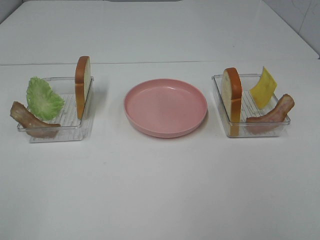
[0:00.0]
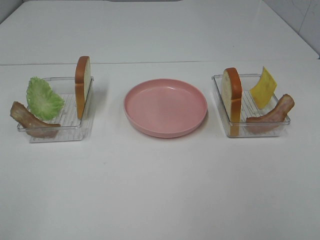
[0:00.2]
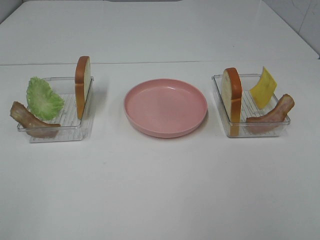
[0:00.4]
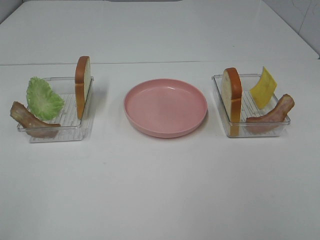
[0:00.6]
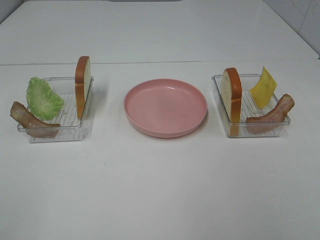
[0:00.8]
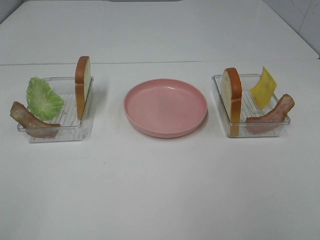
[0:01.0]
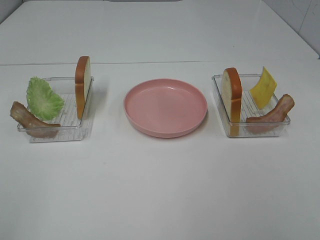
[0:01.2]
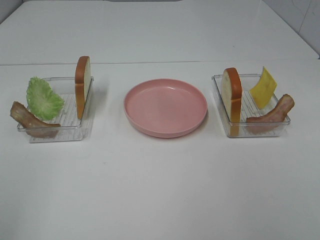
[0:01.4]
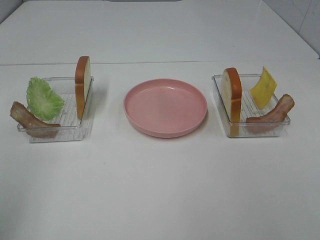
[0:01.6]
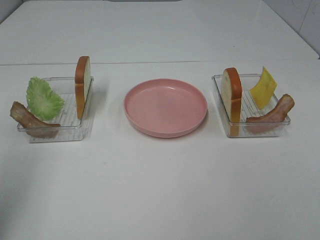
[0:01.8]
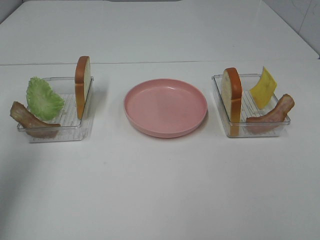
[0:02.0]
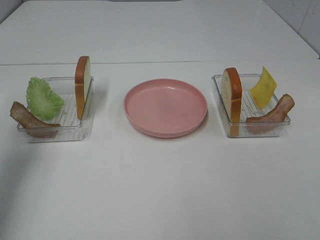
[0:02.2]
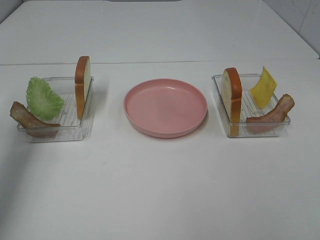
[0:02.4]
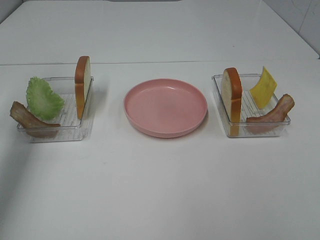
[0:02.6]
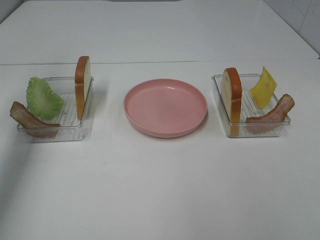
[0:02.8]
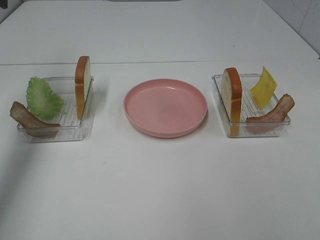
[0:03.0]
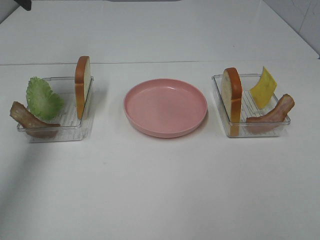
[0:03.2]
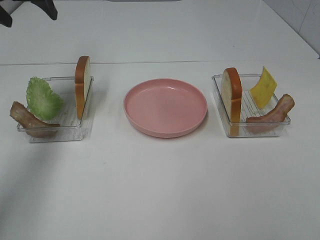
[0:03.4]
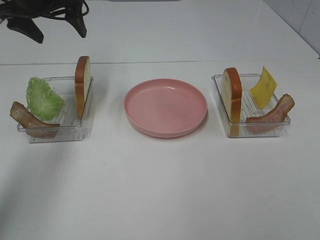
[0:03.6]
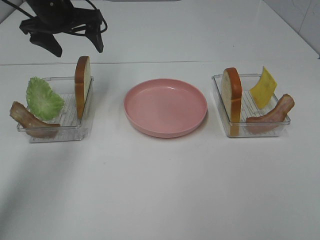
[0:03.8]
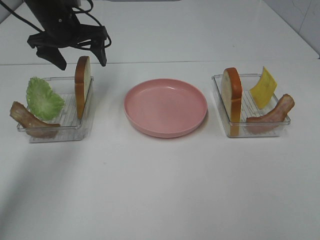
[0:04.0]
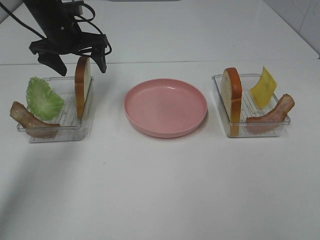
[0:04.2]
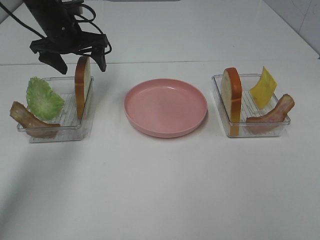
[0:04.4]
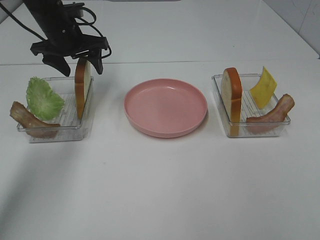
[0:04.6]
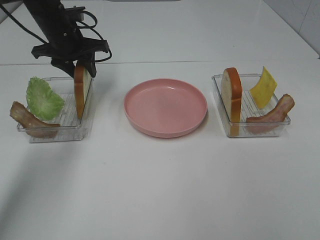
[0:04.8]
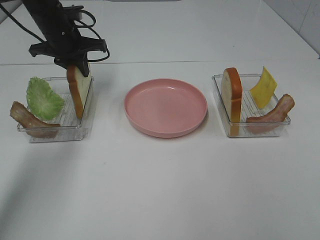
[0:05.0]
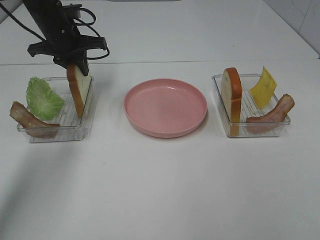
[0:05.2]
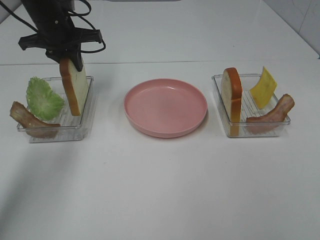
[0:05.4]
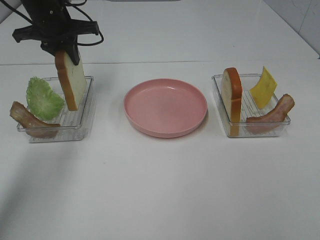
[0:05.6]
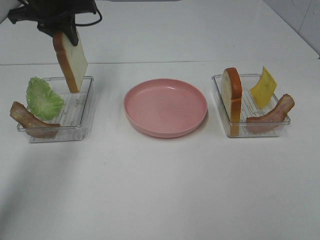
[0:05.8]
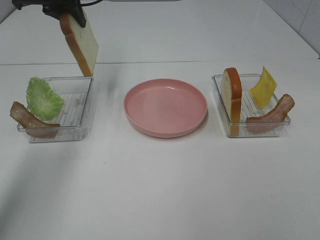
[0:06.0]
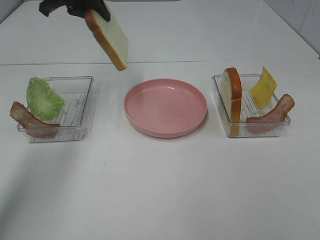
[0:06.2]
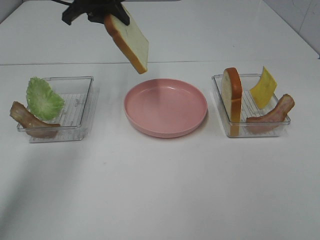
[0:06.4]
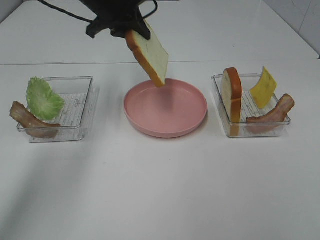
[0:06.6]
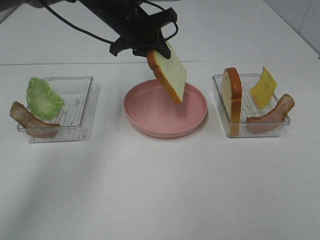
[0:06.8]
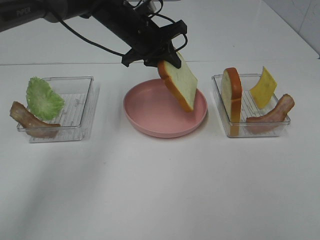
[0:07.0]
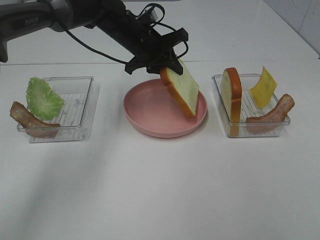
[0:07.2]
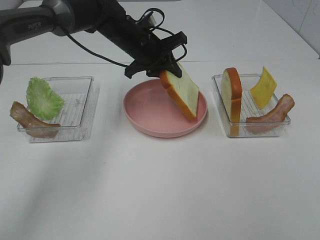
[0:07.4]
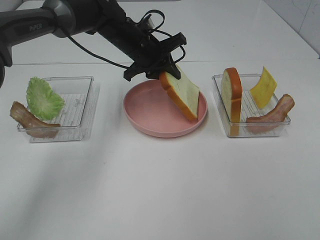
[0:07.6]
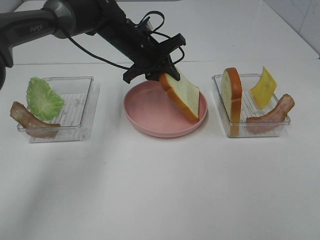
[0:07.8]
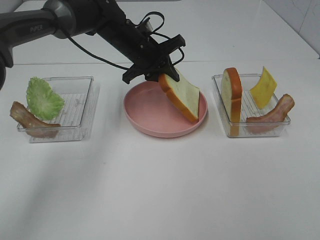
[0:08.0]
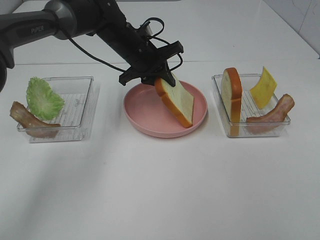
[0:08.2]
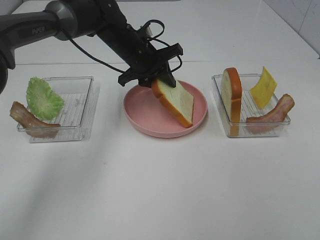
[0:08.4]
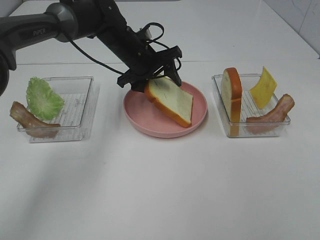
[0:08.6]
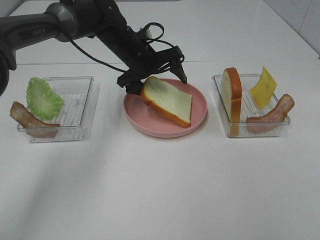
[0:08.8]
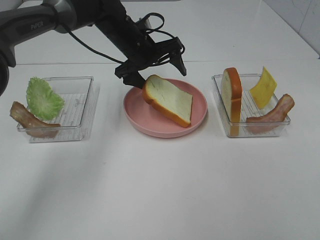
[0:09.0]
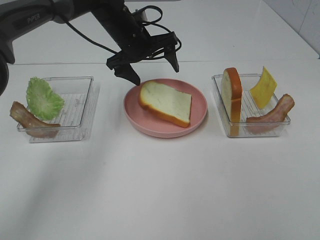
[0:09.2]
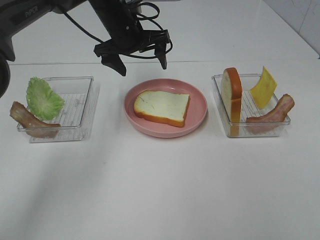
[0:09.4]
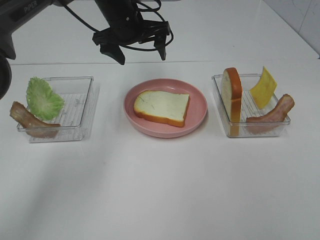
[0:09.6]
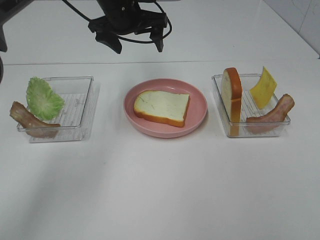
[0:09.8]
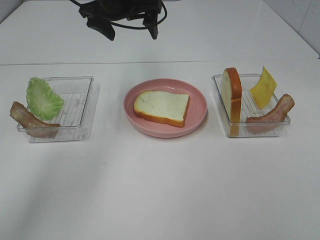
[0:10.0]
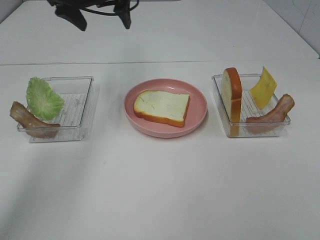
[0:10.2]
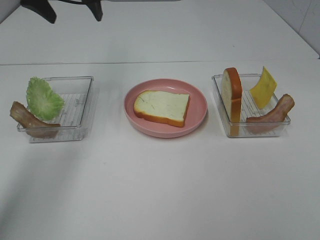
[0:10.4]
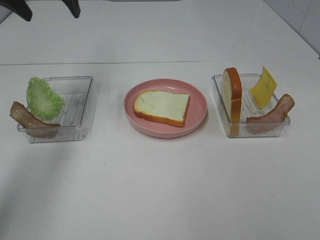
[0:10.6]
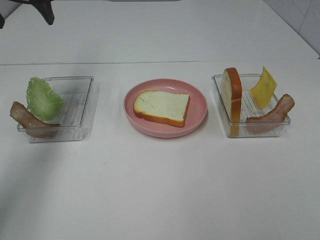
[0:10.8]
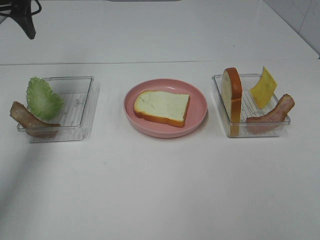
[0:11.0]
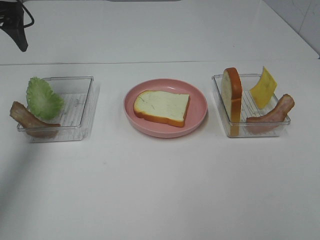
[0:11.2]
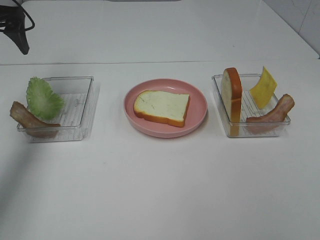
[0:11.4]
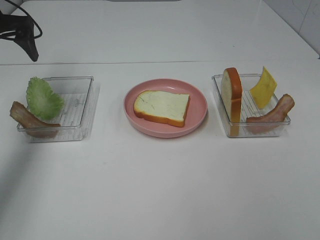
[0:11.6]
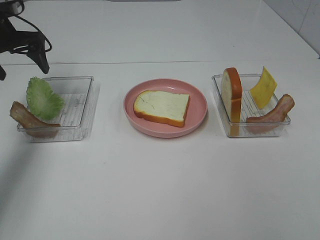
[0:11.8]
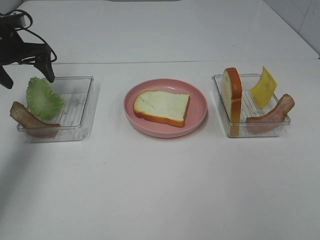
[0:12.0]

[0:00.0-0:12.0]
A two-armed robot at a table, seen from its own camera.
Task of the whole recording: Make sandwiches.
Step, 0:00.0 to 0:05.2: Left hand:grab the bread slice.
Step, 0:05.4 to 0:09.2: Left hand:place the bread slice on the plate.
0:01.6 to 0:03.0: The left gripper heads forward, covering about 30 cm.
0:03.0 to 0:04.4: The left gripper is displaced to the right, downward and forward by some 20 cm.
0:04.4 to 0:06.0: The left gripper is displaced upward by some 10 cm, and closes its fingers.
0:06.0 to 0:07.6: The left gripper shifts about 20 cm downward and to the right.
0:07.6 to 0:09.0: The left gripper opens up.
0:09.0 to 0:10.4: The left gripper goes approximately 20 cm upward and to the left.
0:10.4 to 0:12.0: The left gripper heads downward and to the left, covering roughly 20 cm.

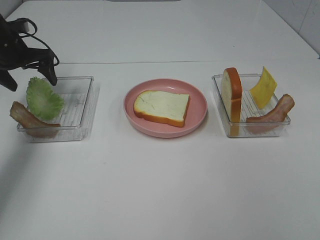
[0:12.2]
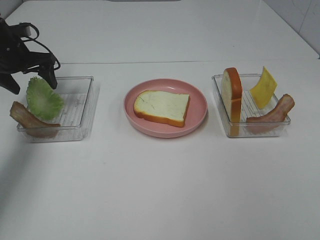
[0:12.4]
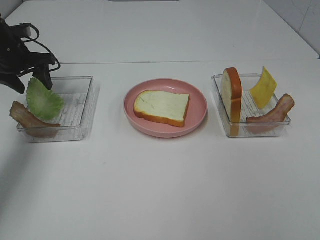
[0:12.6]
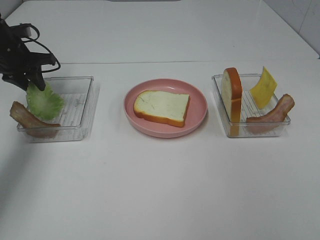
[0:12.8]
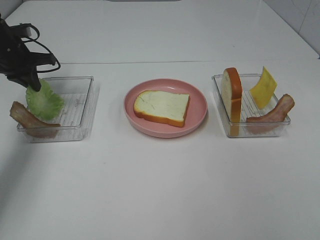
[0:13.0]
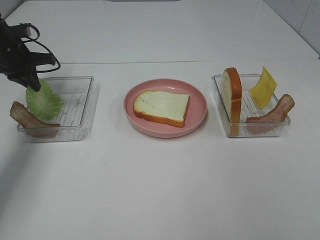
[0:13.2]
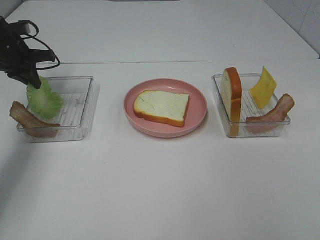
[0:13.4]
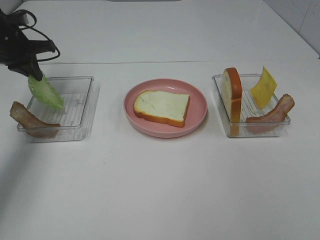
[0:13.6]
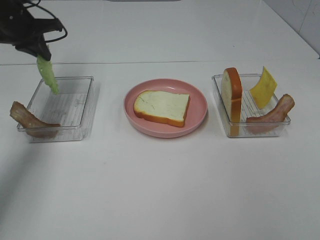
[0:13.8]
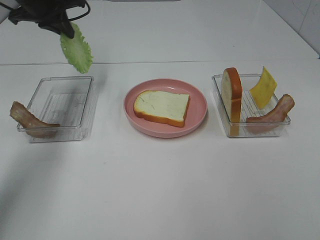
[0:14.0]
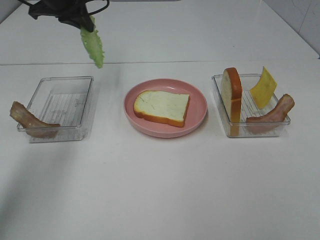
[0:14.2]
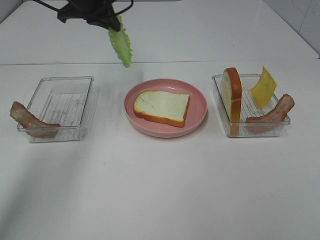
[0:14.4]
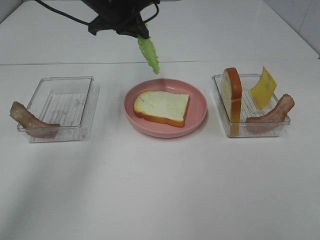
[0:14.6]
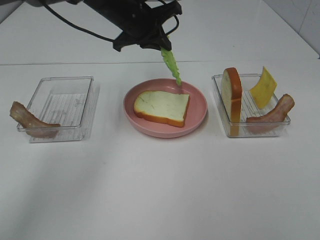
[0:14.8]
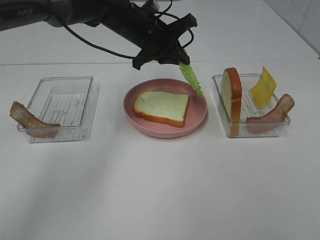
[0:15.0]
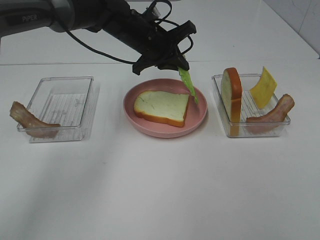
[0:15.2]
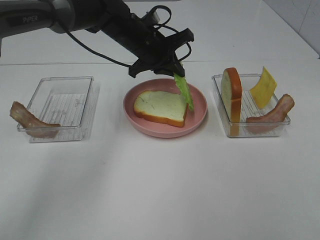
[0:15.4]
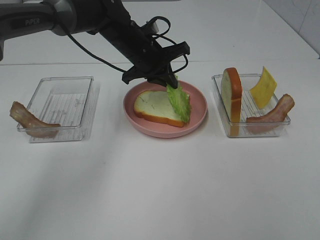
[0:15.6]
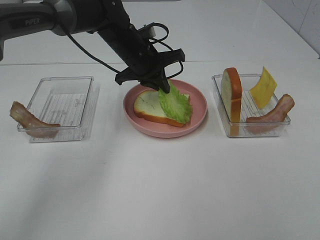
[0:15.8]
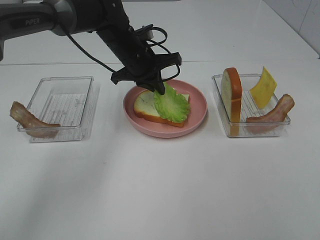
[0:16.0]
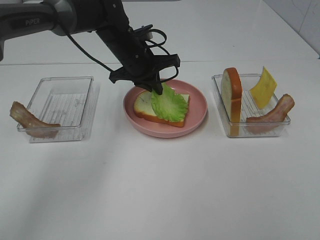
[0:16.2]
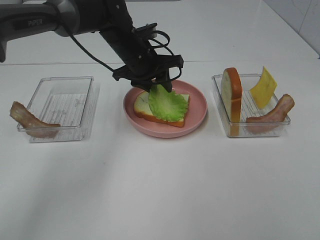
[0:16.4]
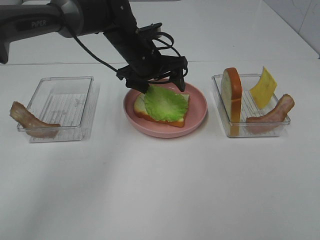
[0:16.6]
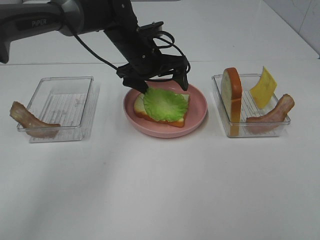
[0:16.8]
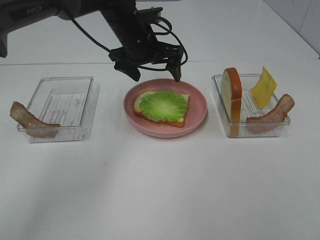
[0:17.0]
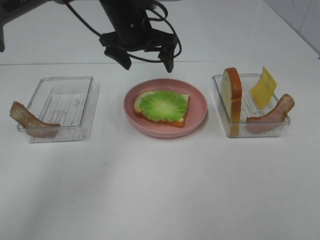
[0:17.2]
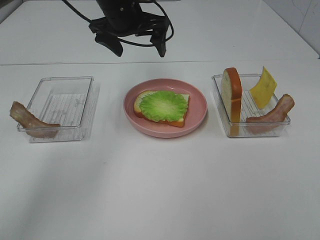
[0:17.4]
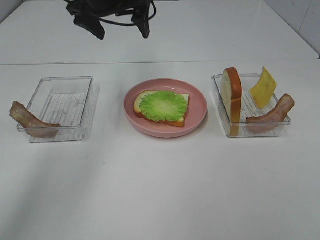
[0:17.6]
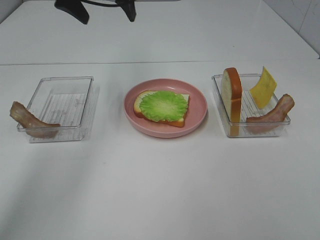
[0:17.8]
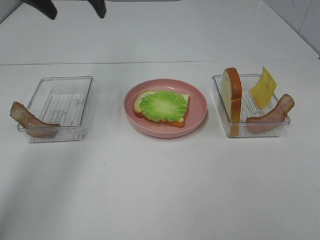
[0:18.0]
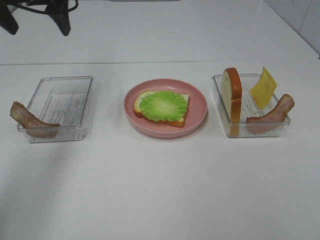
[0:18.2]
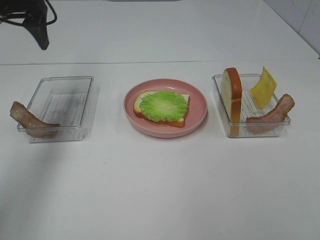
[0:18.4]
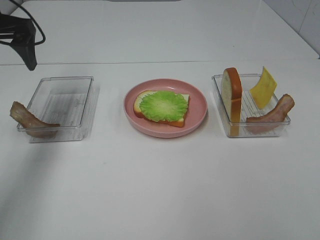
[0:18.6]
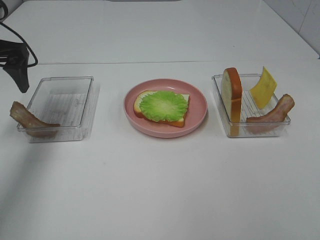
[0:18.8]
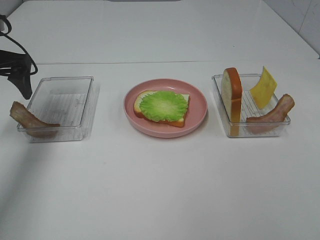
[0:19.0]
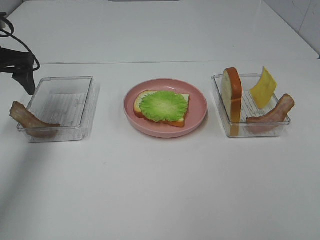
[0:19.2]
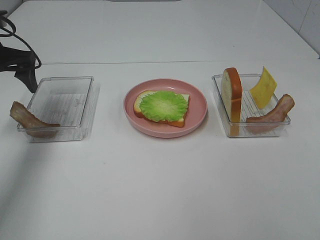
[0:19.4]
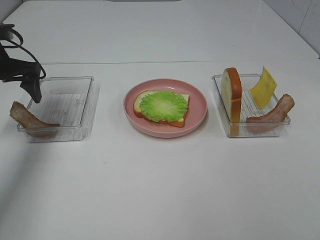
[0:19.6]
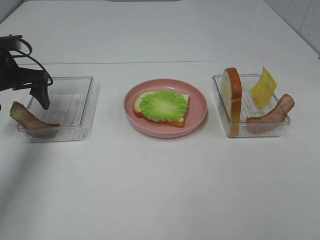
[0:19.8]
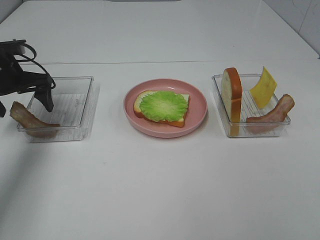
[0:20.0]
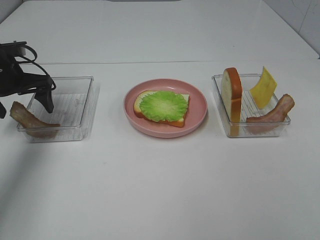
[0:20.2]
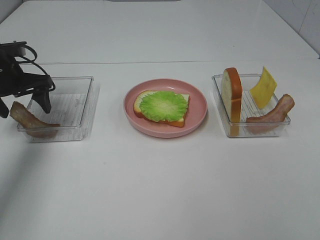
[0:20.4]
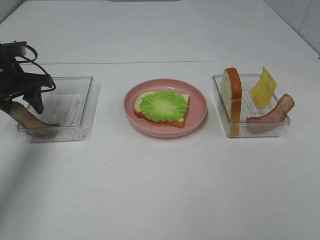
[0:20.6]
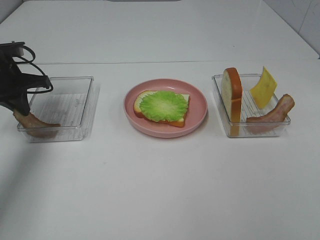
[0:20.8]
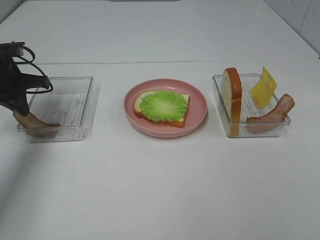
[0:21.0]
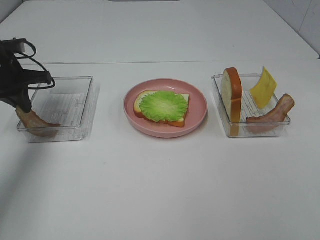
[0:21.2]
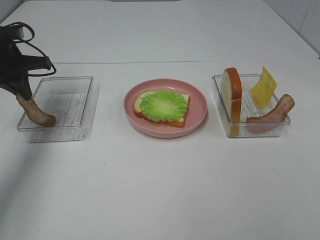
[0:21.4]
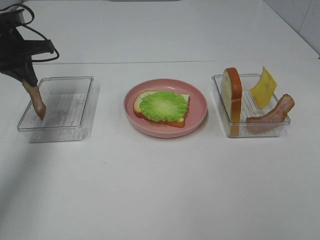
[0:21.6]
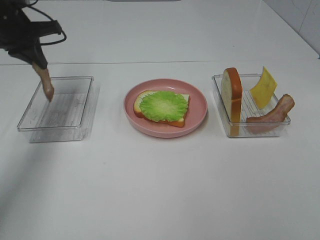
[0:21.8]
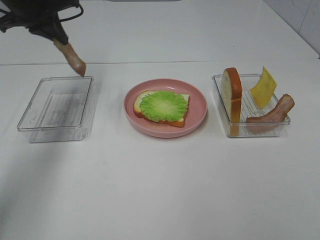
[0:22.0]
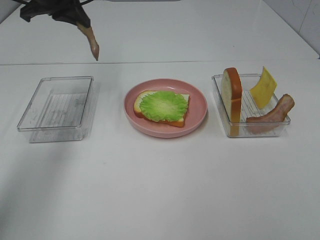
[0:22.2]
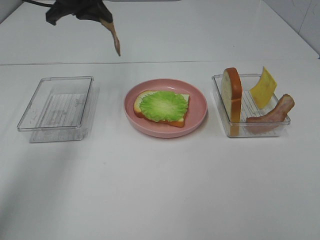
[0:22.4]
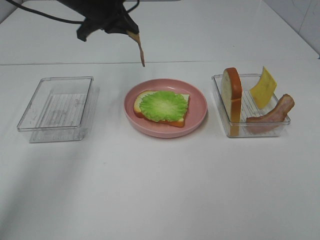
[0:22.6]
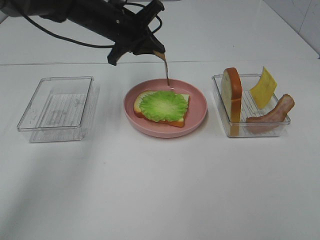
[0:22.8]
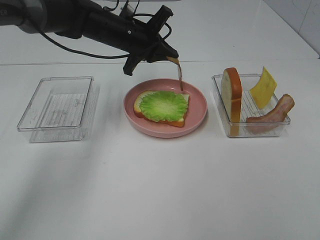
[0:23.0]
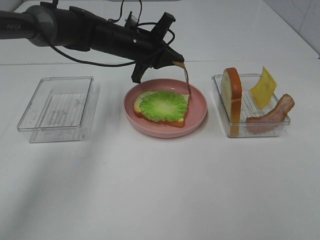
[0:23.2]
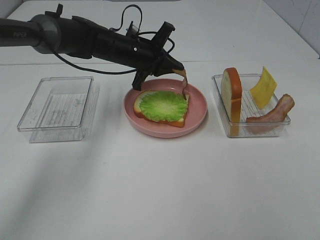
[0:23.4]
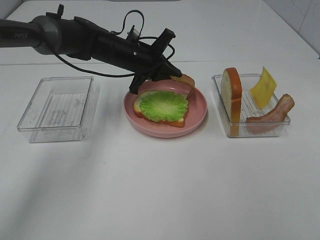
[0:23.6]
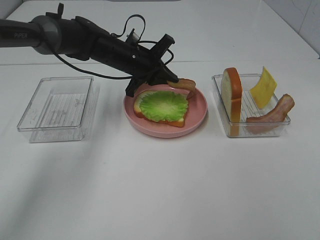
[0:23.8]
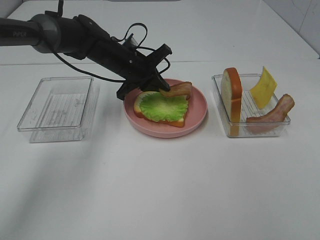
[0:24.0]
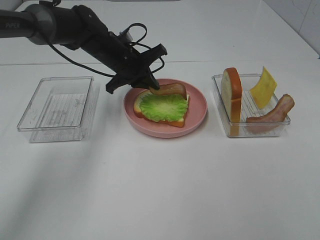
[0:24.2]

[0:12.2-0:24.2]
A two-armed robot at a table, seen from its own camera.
Task of the whole recording: Make sandwiches.
Step, 0:13.6 to 0:17.0: Left hand:place the lettuce slice on the bread slice.
Step, 0:17.2 to 0:21.2: Left hand:grab the bacon.
0:12.2 to 0:13.8: The left gripper travels upward by roughly 5 cm, and closes its fingers.
0:13.8 to 0:15.2: The left gripper moves to the right, about 25 cm.
0:15.2 to 0:16.6: The left gripper opens up.
0:16.6 to 0:18.2: The left gripper shifts some 25 cm to the left and upward.
0:18.2 to 0:19.8: The left gripper heads downward and to the left, covering some 15 cm.
0:19.8 to 0:21.2: The left gripper closes its fingers.
0:21.2 to 0:22.6: The left gripper goes about 20 cm to the right and upward.
0:22.6 to 0:24.2: The left gripper moves downward, approximately 10 cm.
